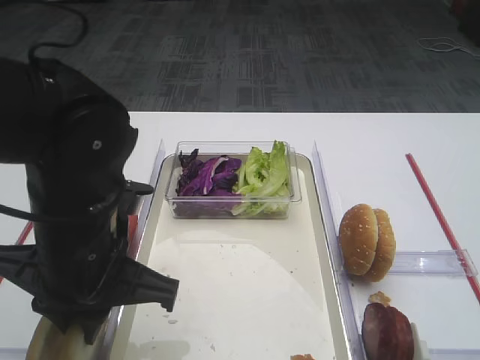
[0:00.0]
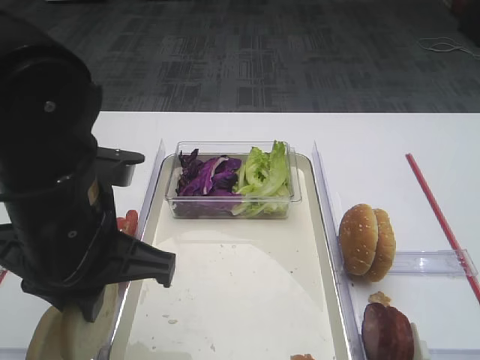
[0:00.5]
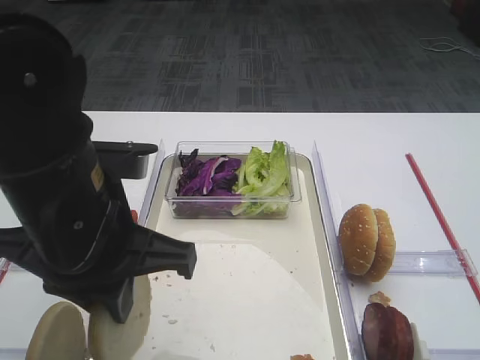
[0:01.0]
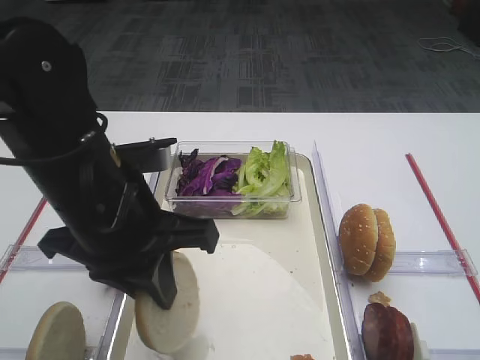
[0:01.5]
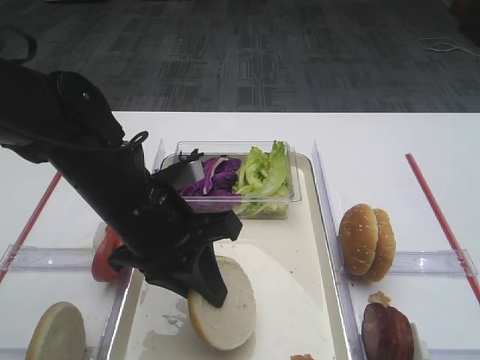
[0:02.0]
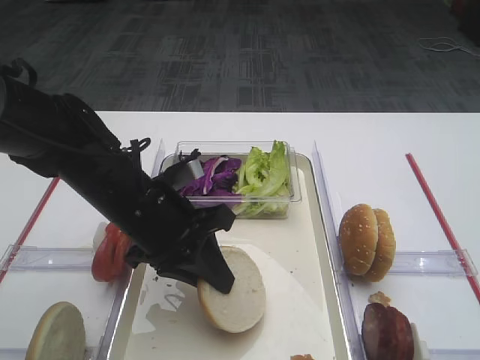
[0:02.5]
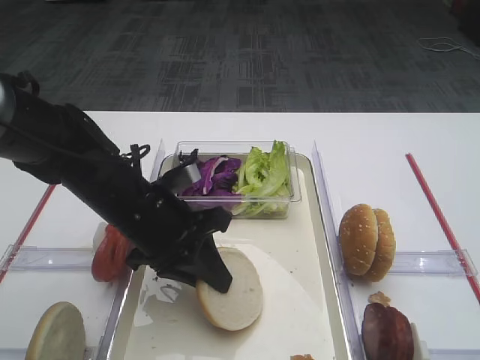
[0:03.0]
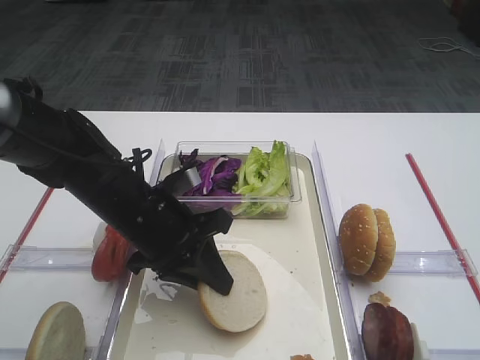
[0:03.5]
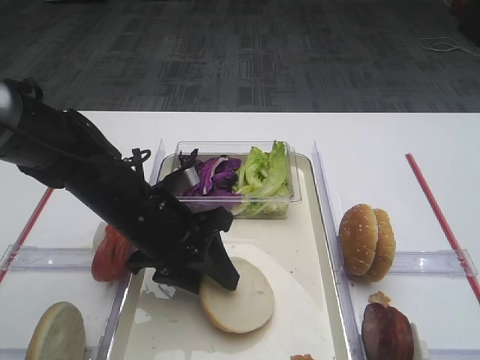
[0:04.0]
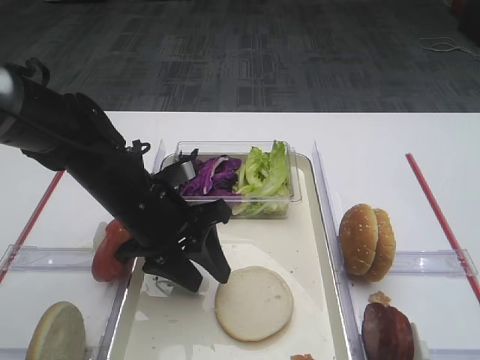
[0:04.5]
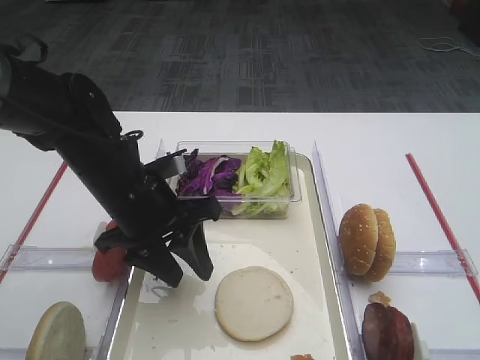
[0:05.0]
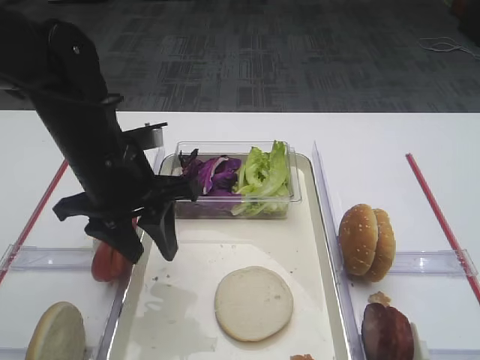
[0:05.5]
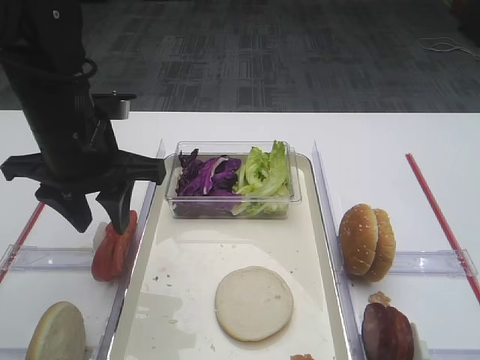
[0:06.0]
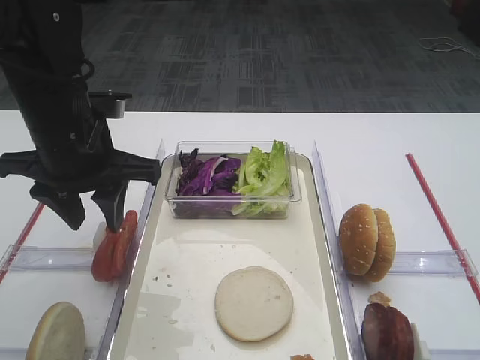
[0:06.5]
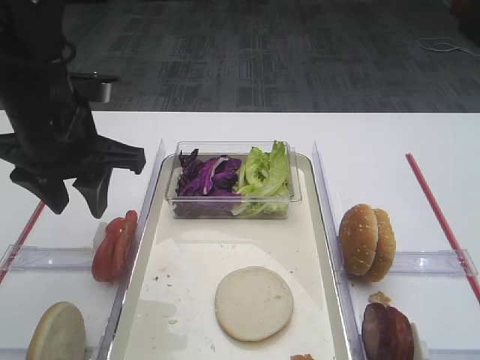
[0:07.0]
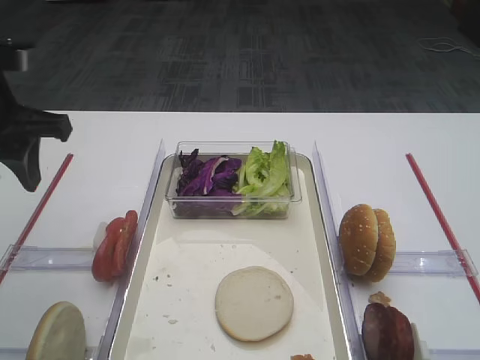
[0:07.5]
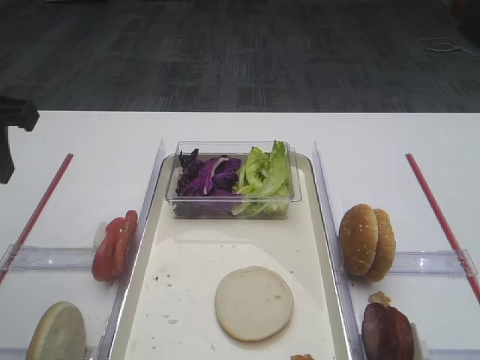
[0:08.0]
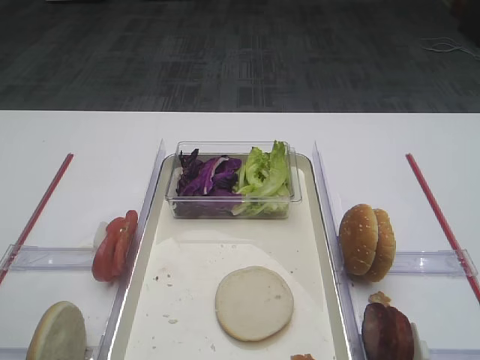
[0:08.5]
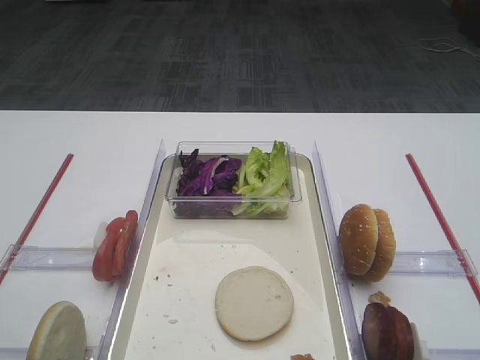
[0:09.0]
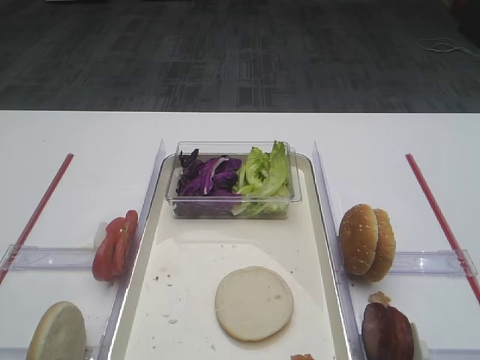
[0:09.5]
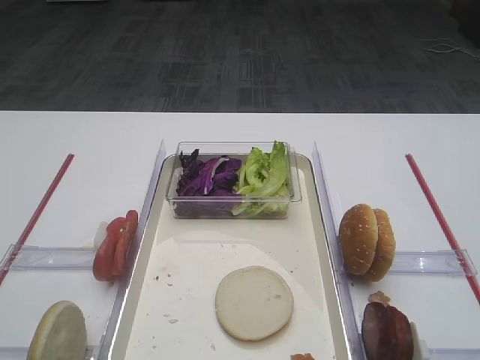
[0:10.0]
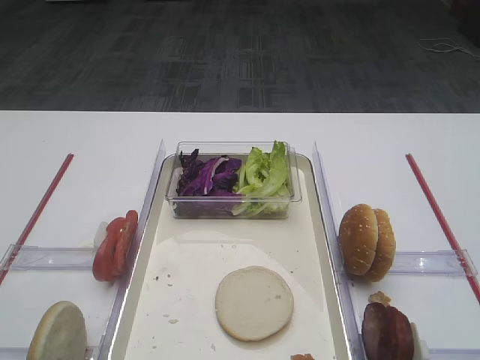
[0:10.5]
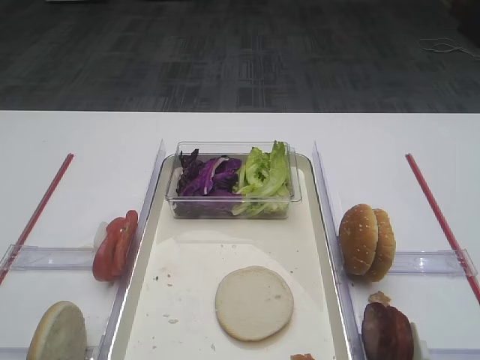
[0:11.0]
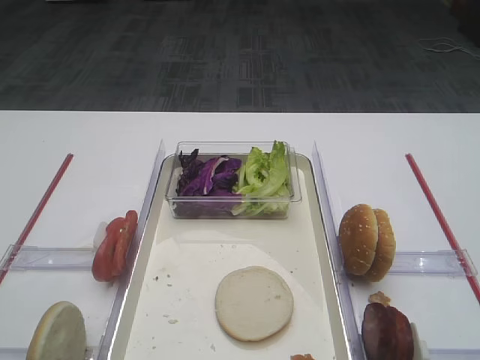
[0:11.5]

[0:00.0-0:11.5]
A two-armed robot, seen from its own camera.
Step, 0:01.0 to 0:04.0: Place the bread slice on the tray with the left gripper.
0:00.0 to 0:02.0: The left gripper moves about 5 cm.
0:02.0 to 0:04.0: The left gripper ends up approximately 5 cm from where it was, and opens.
0:04.0 to 0:06.0: The left gripper is displaced upward and to the left by approximately 10 cm.
0:06.0 to 0:07.5: The left gripper shifts approximately 10 cm to the left.
0:07.5 to 0:09.5: The left gripper is displaced backward by some 30 cm.

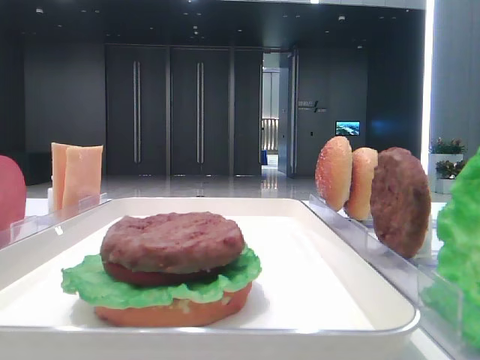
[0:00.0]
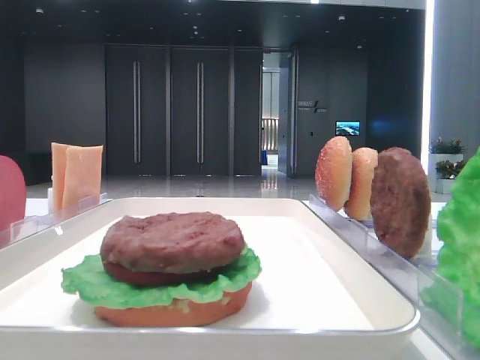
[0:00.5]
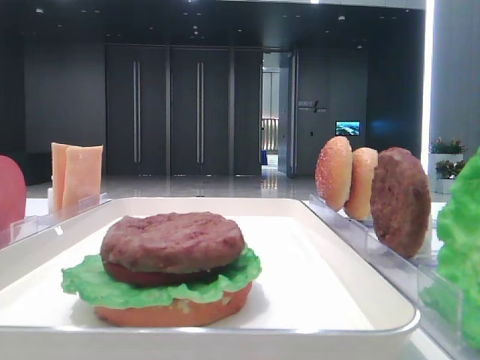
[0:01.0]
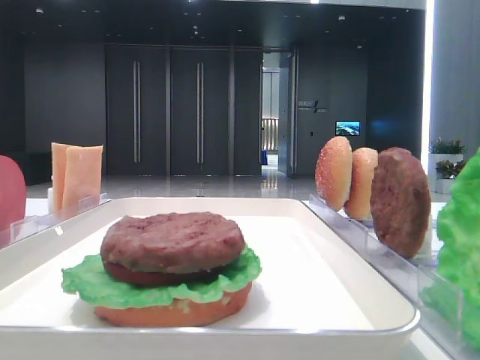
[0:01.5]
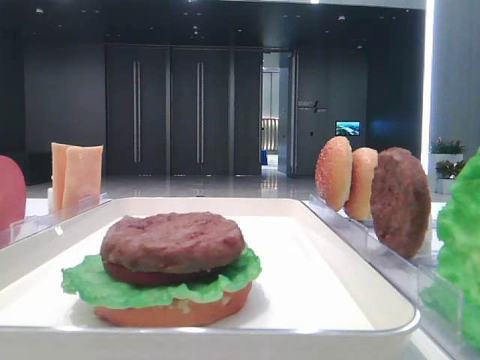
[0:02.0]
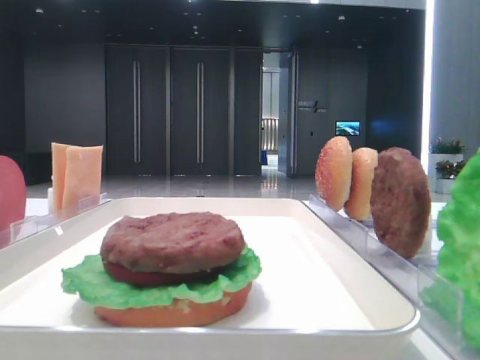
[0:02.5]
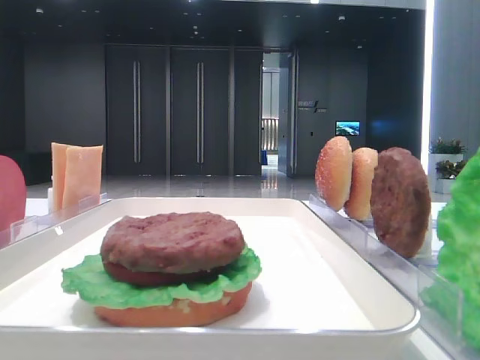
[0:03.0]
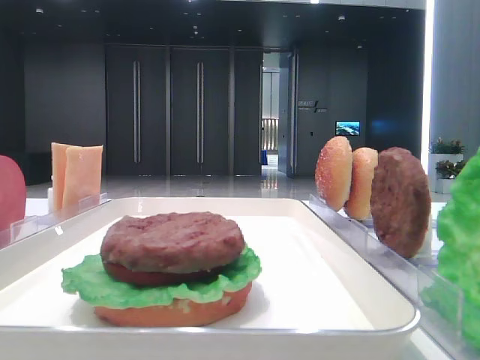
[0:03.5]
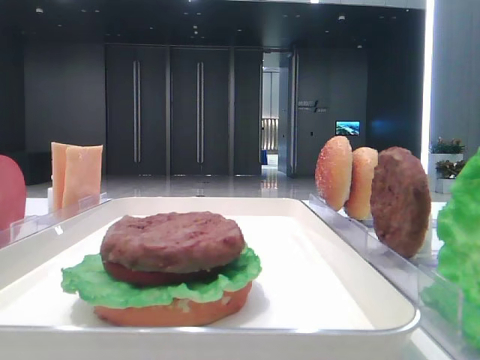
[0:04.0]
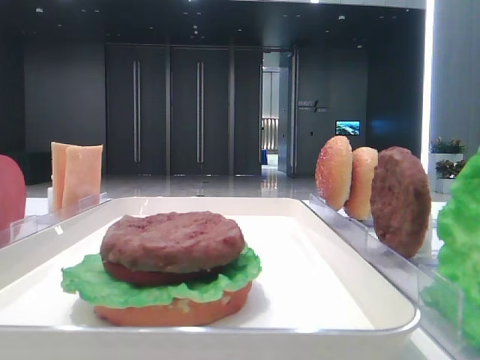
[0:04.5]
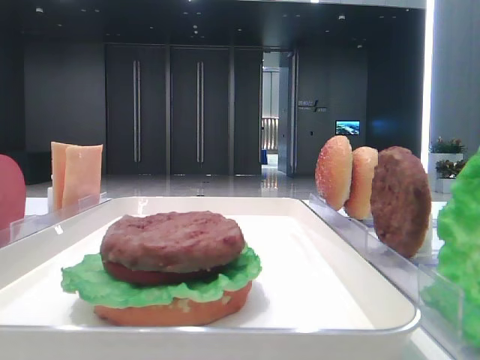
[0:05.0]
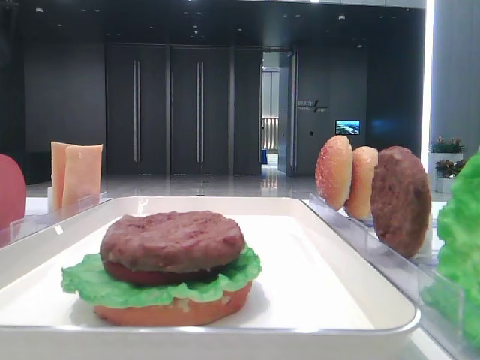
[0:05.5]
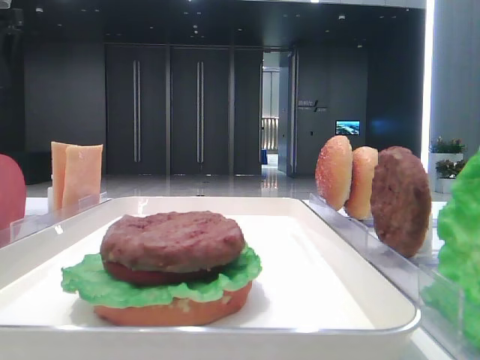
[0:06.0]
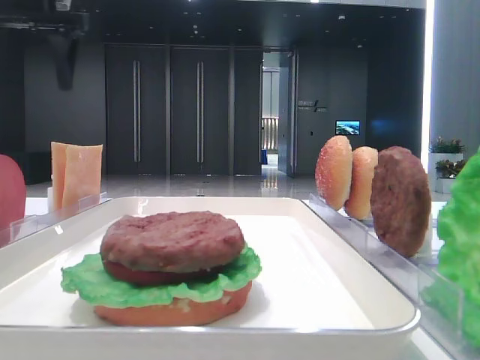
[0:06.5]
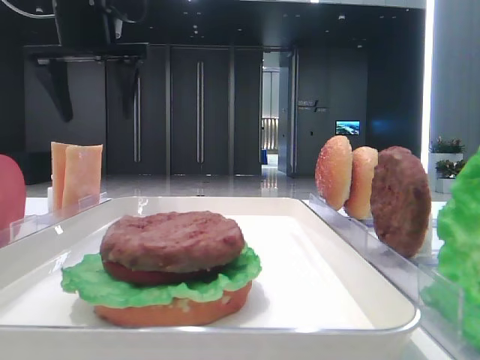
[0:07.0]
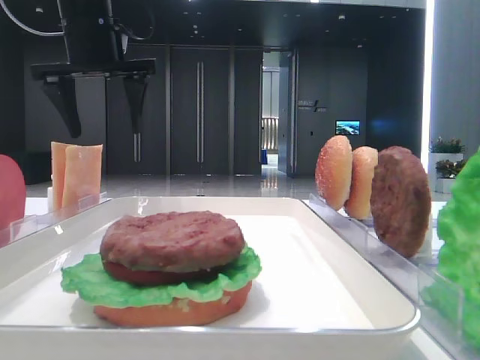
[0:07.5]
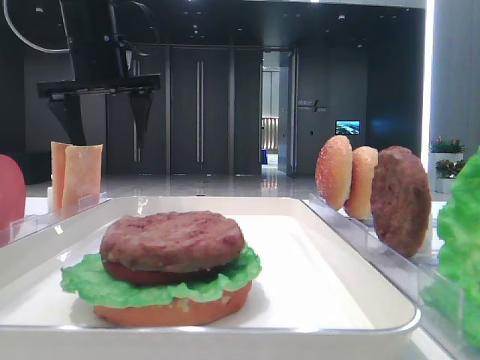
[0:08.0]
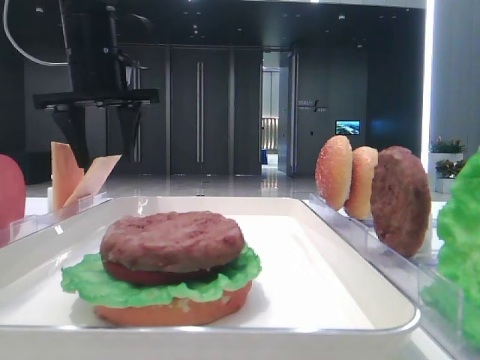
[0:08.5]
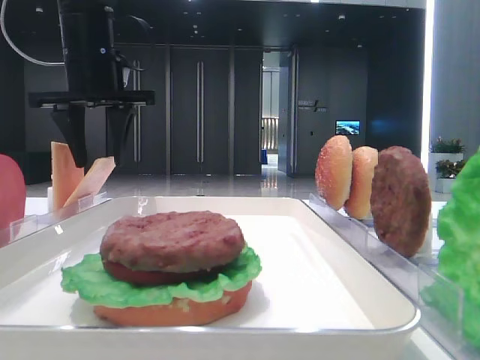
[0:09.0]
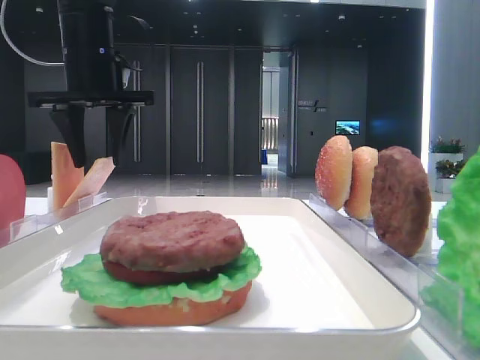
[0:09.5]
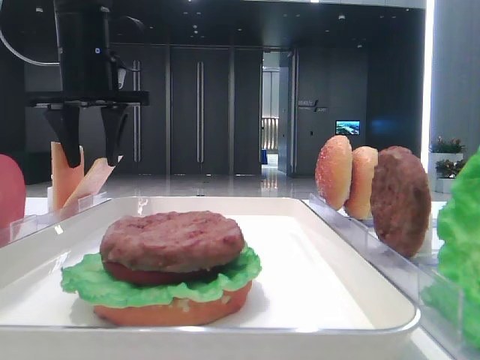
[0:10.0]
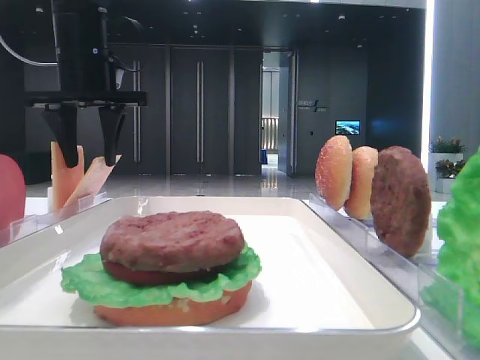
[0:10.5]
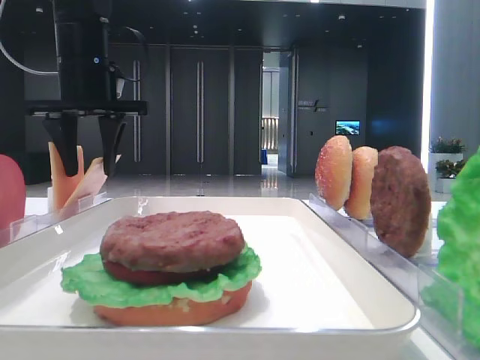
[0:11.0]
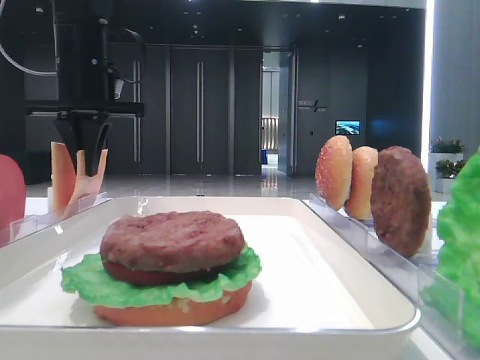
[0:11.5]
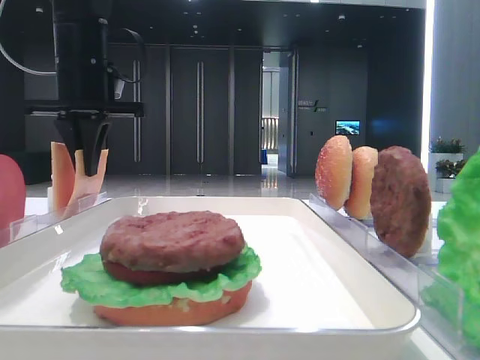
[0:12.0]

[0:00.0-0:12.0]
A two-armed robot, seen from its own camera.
Step, 0:00.0 to 0:11.5: Pick up the cheese slice with the left hand.
0:06.0 to 0:08.0: The left gripper goes some 20 cm to the right and downward.
0:08.0 to 0:10.0: The left gripper closes.
0:10.0 to 0:12.0: The left gripper closes up.

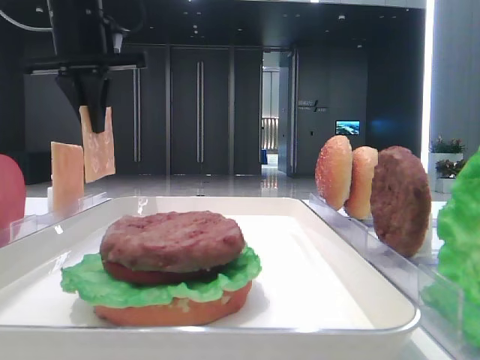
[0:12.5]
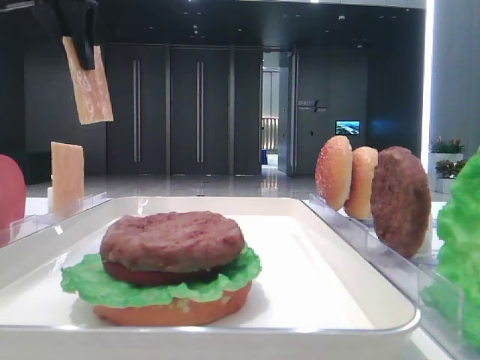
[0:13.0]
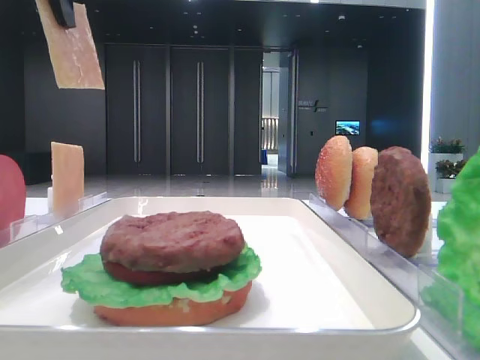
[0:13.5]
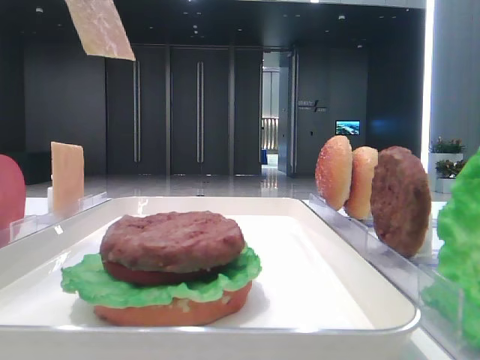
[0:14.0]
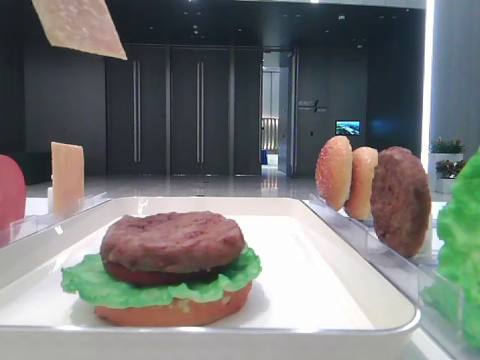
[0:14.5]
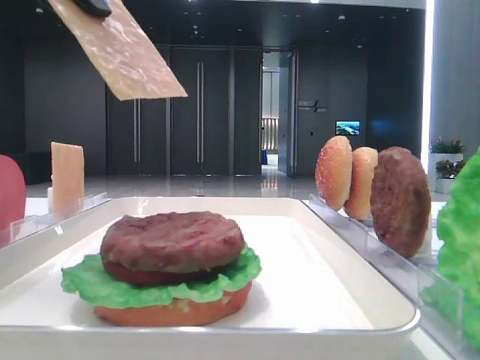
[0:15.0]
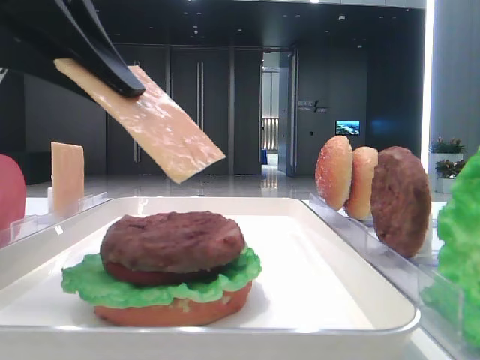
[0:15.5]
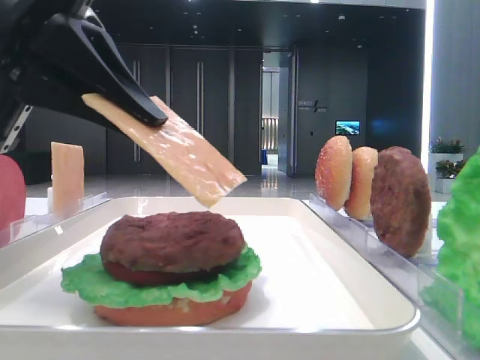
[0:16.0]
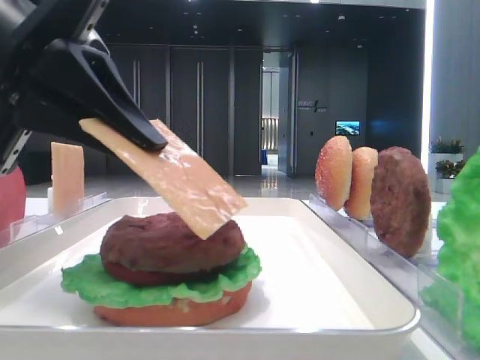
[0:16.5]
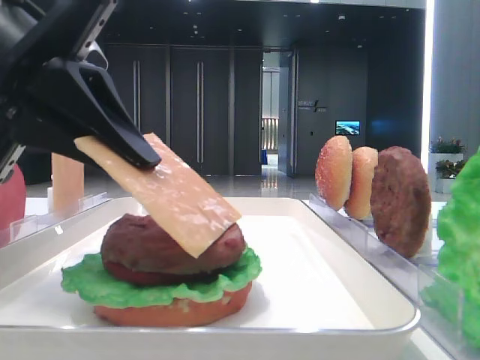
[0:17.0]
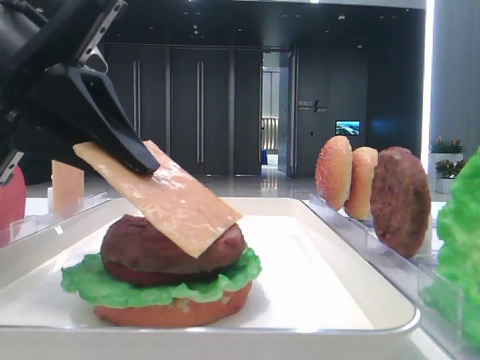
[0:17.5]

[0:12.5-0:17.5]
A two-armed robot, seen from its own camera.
0:12.5 to 0:15.0: The left gripper moves backward, roughly 20 cm.
0:15.0 to 0:17.5: The left gripper moves downward, approximately 10 cm.
